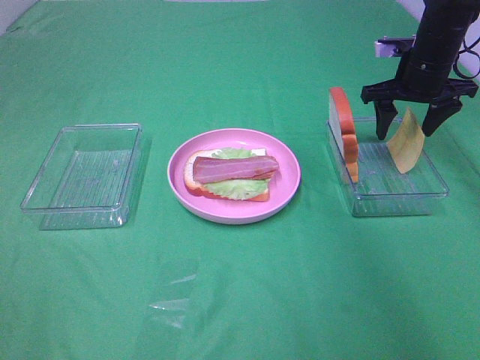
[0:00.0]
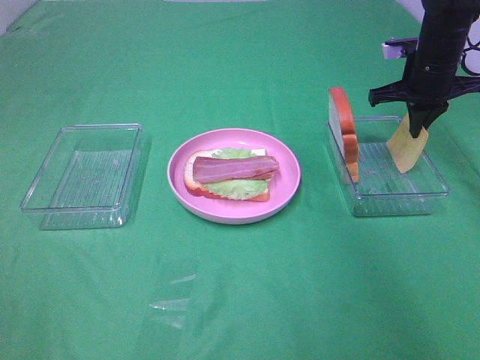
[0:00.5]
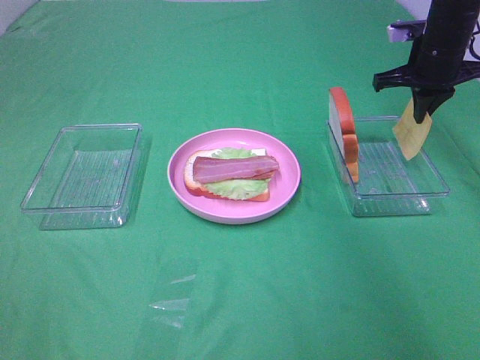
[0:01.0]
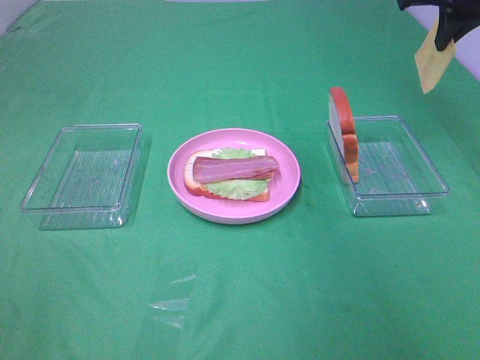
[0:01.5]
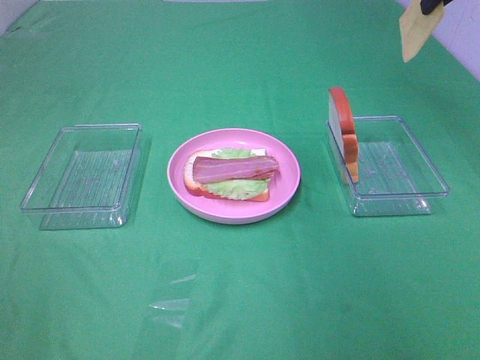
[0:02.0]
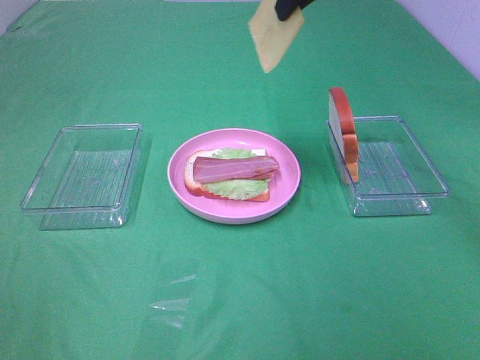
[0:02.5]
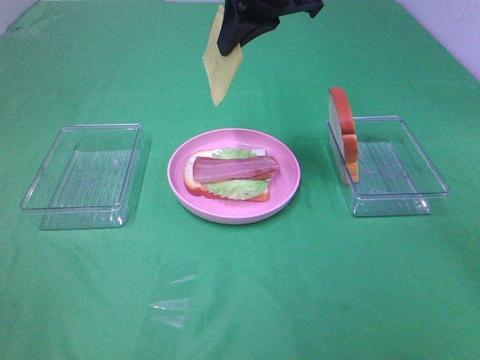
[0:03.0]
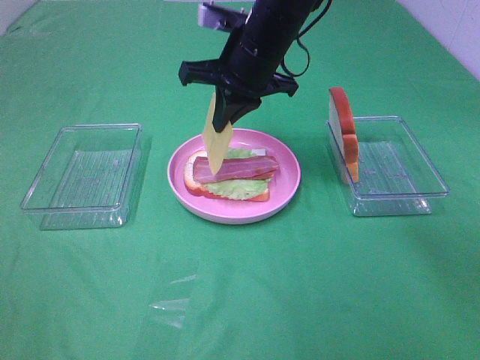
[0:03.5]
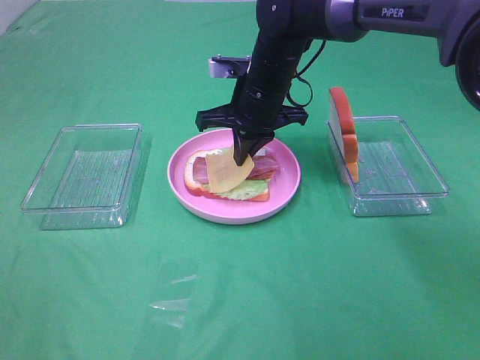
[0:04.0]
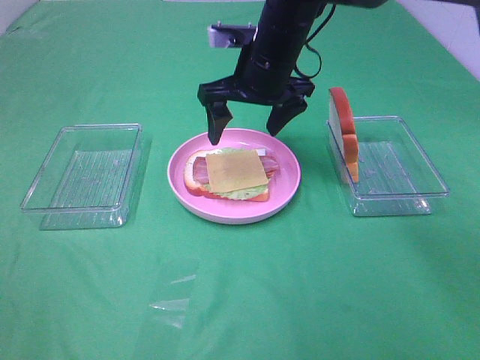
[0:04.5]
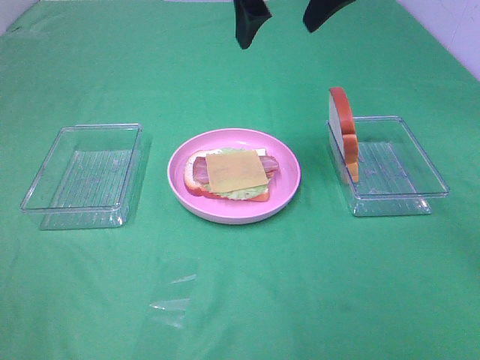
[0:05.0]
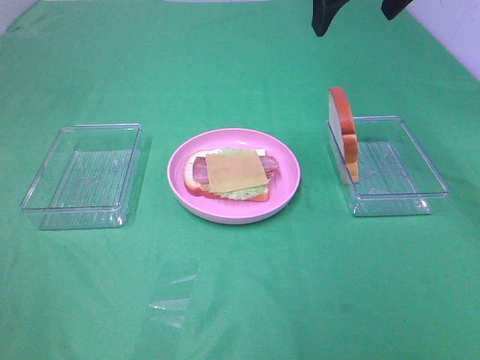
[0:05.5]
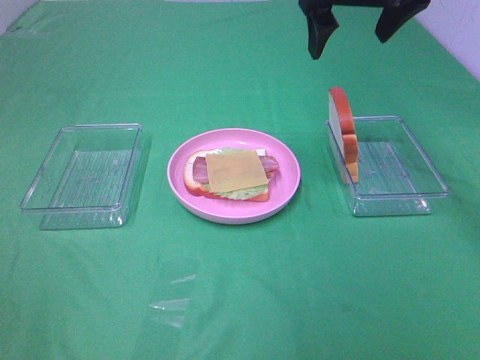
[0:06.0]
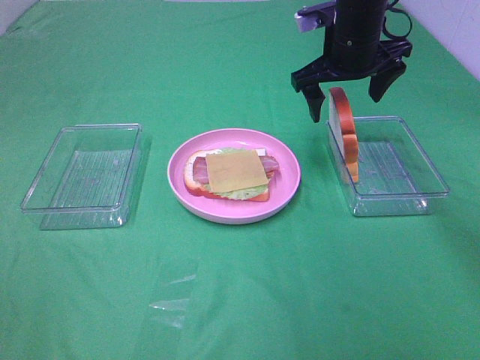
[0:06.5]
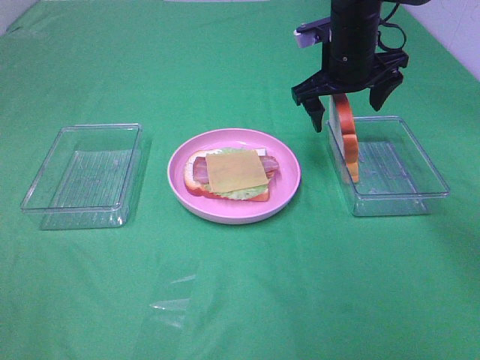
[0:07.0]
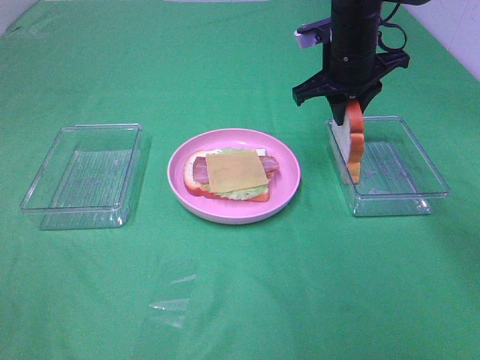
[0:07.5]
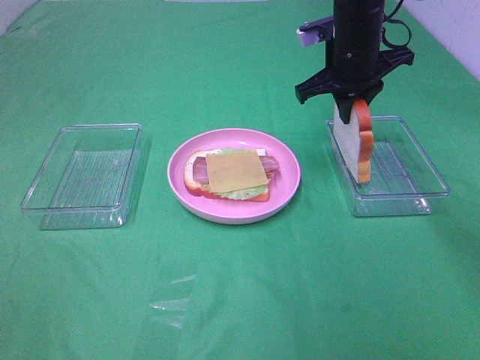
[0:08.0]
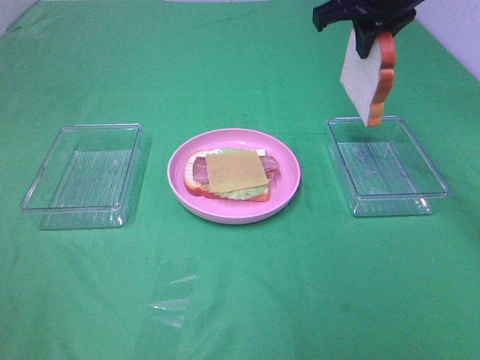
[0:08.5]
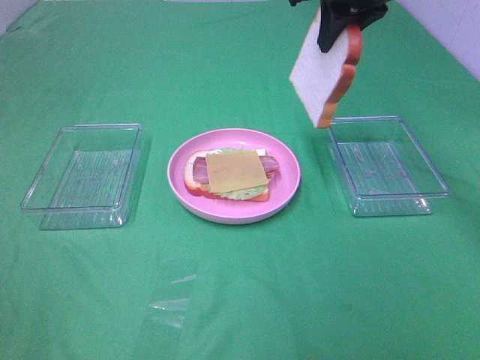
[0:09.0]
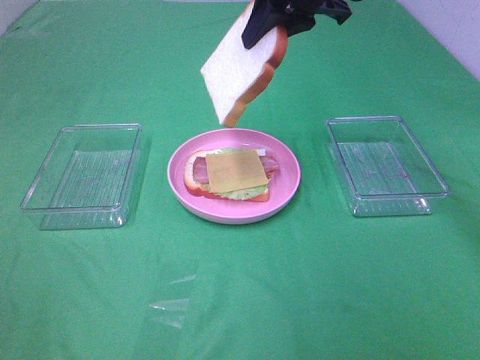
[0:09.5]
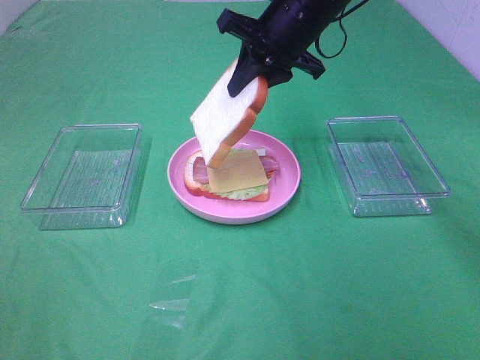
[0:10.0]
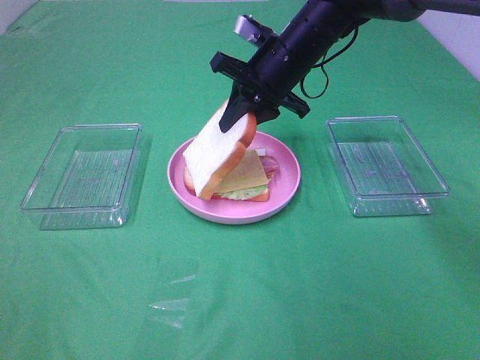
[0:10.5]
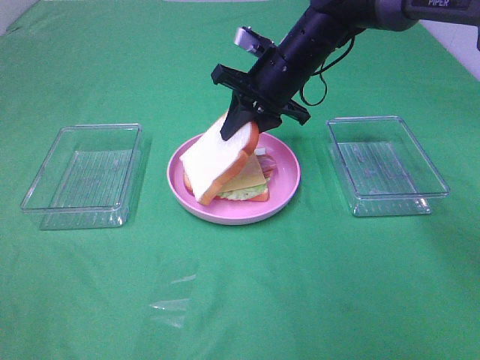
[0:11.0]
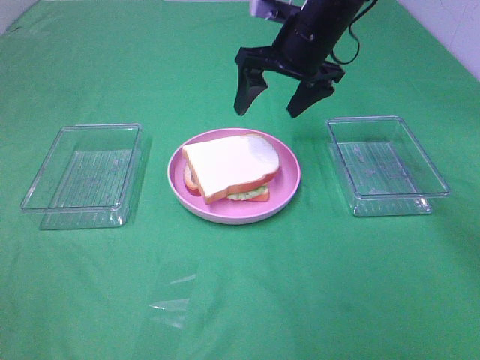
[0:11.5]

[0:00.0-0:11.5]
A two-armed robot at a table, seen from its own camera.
Task of the whole recording: Make sandwiches.
Step, 0:01.0 to 0:04.0: Right hand:place the cheese slice on top of the bacon.
Step, 0:04.5 to 0:08.0: Right hand:grab the bread slice.
Step, 0:08.5 to 0:11.5: Right hand:place the bread slice on the cheese slice.
0:00.0 to 0:02.0: The right gripper shifts approximately 20 cm upward, and closes up.
0:02.0 to 0:04.0: The right gripper is displaced to the left and downward by some 30 cm.
0:04.0 to 0:06.0: The right gripper travels upward and to the right by some 20 cm, and opens.
0:06.0 to 0:07.5: The right gripper is displaced downward by about 10 cm, and closes its fingers.
0:07.5 to 0:09.5: The right gripper goes some 10 cm upward and to the left.
0:09.5 to 0:11.5: The right gripper moves downward, approximately 5 cm, and opens its fingers.

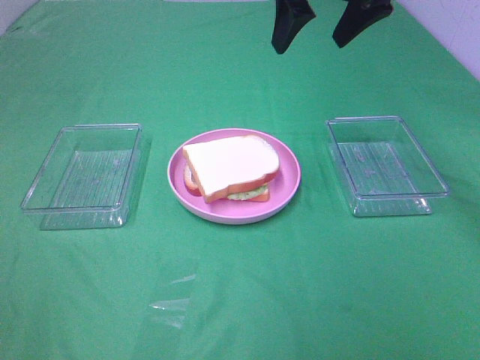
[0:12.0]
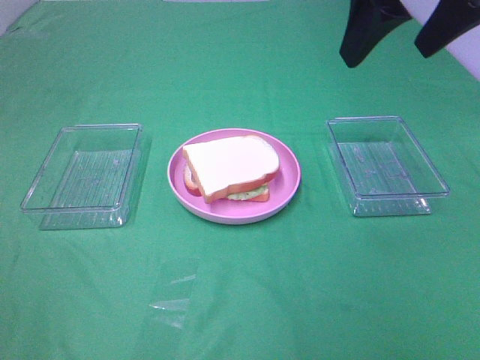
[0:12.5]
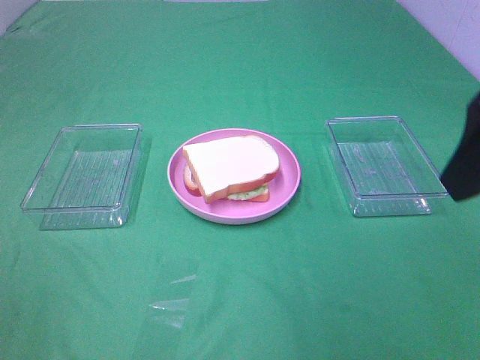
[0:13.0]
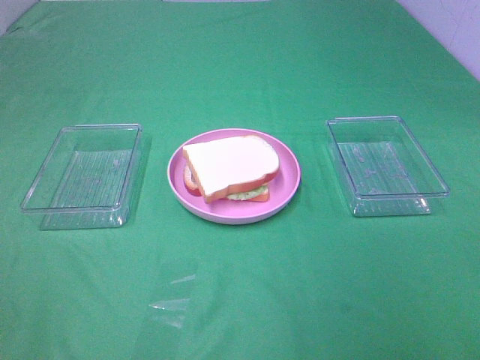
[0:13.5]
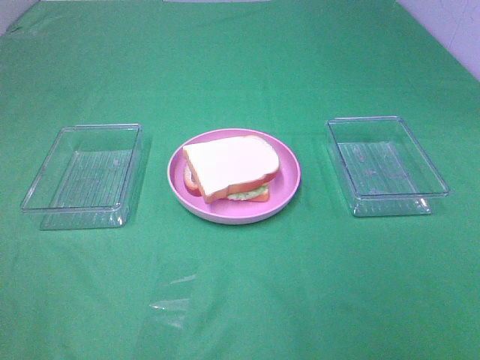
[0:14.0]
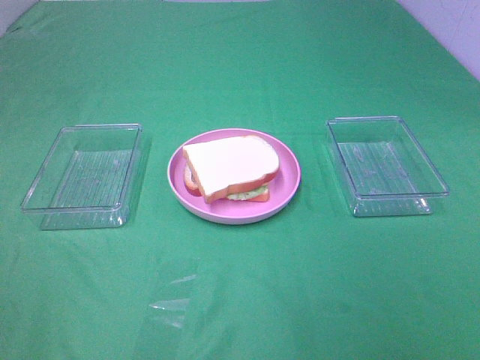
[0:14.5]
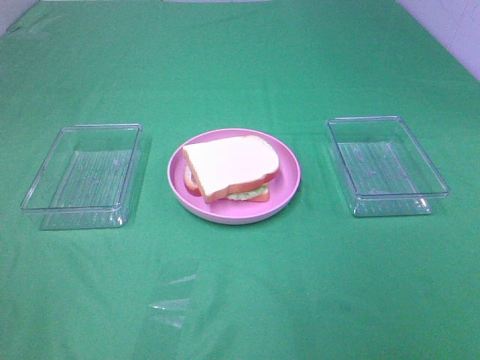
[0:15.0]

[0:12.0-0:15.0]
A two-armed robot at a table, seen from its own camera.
Task of the whole recording: Make sandwiches.
0:12.0 to 0:13.5: The right gripper moves backward and to the right, approximately 35 cm.

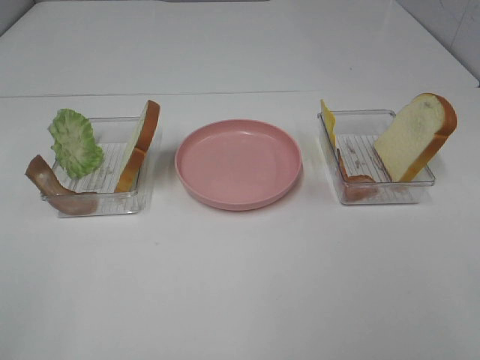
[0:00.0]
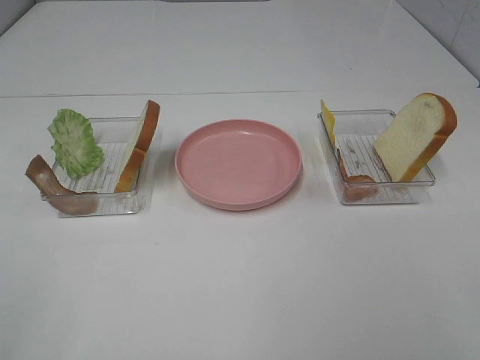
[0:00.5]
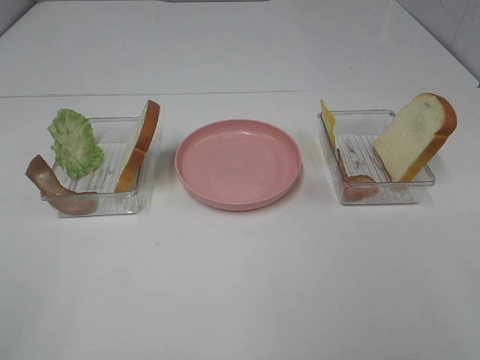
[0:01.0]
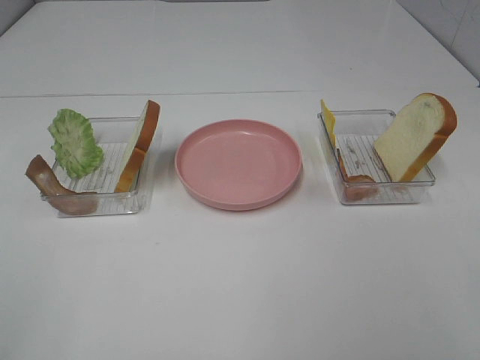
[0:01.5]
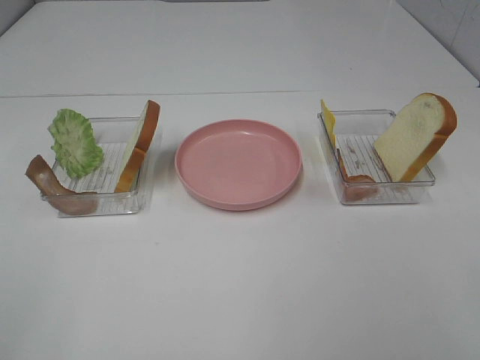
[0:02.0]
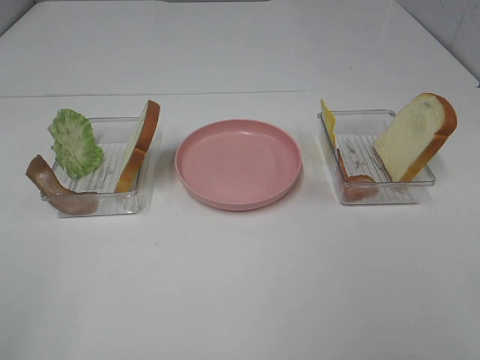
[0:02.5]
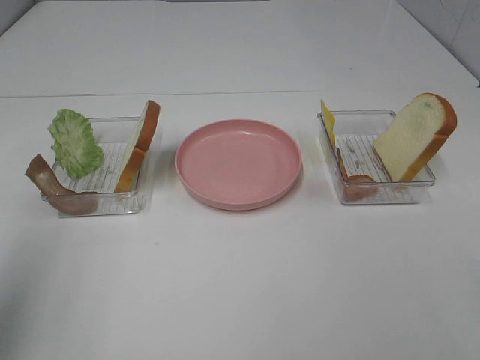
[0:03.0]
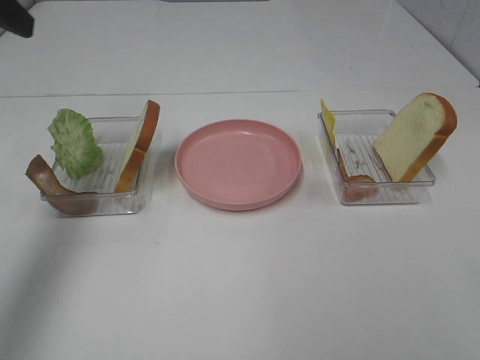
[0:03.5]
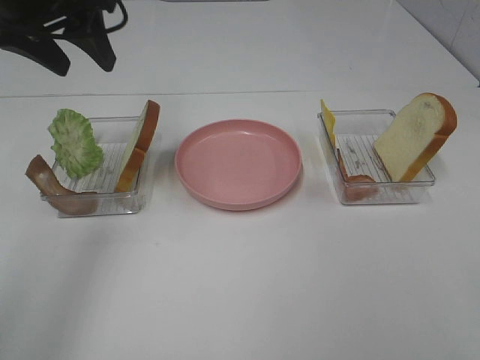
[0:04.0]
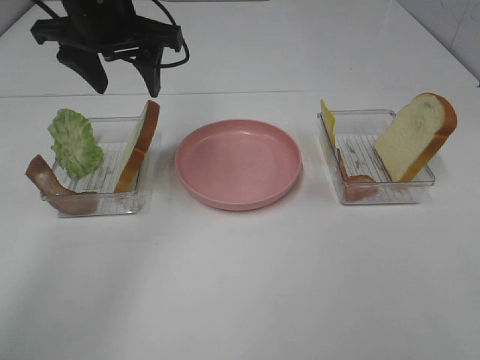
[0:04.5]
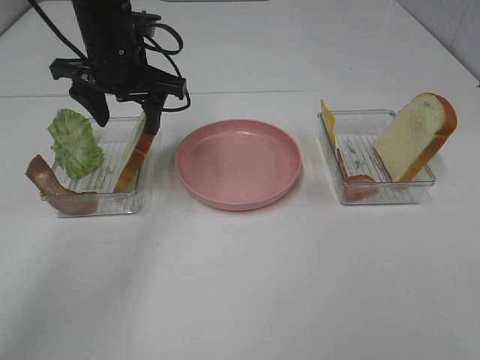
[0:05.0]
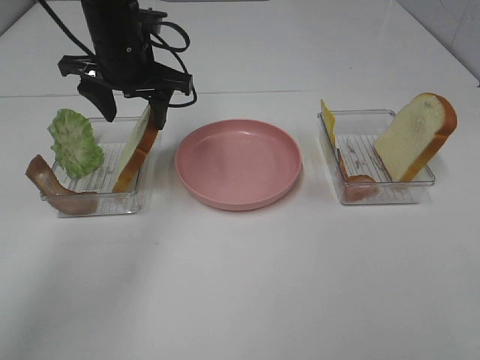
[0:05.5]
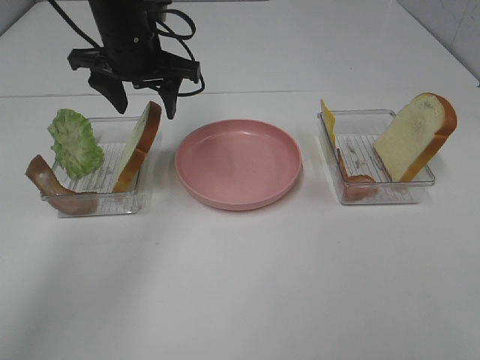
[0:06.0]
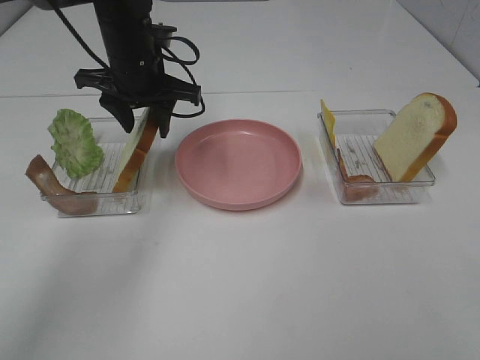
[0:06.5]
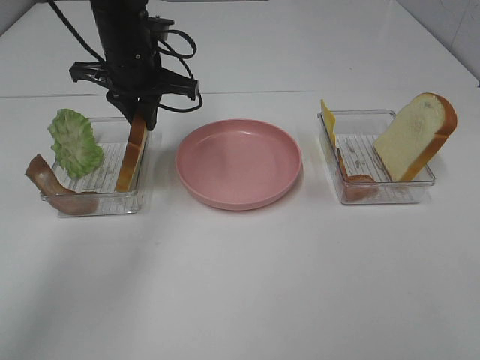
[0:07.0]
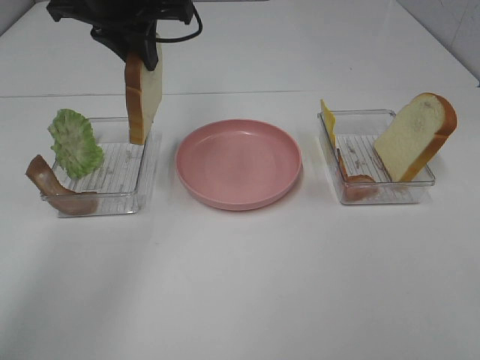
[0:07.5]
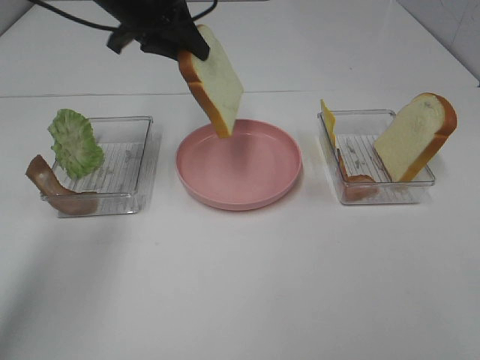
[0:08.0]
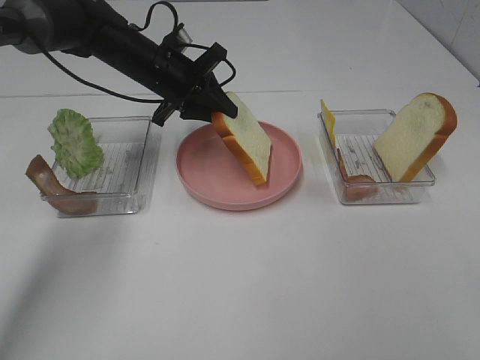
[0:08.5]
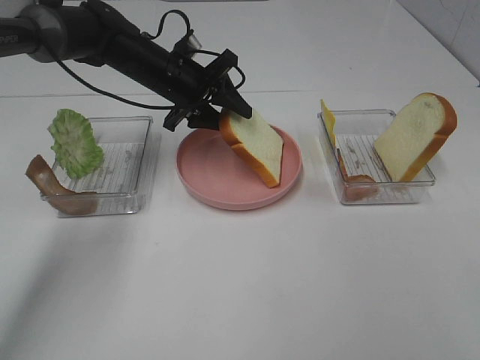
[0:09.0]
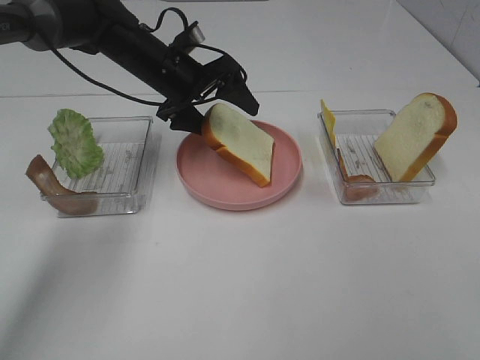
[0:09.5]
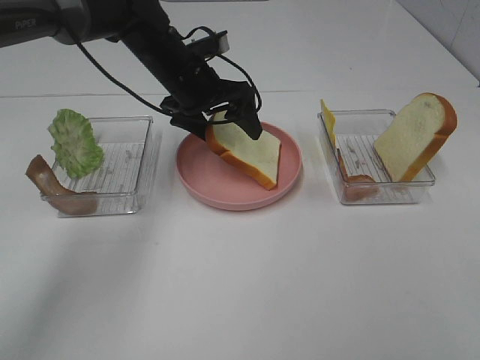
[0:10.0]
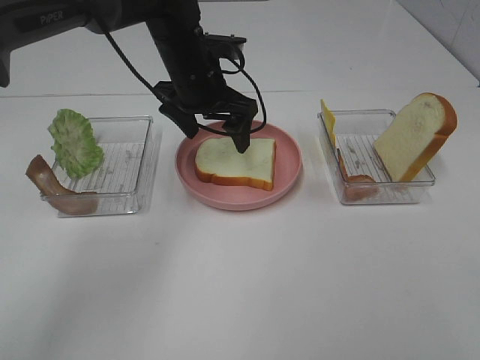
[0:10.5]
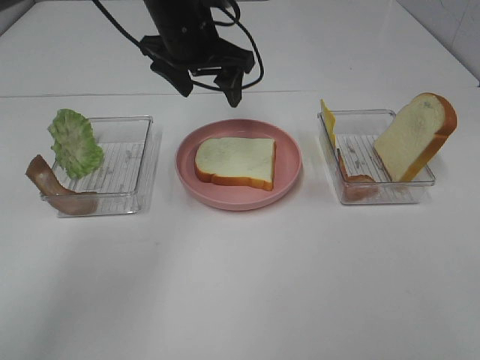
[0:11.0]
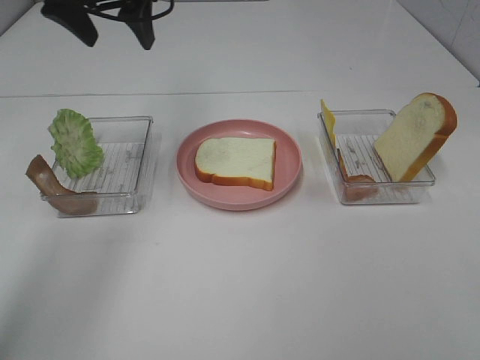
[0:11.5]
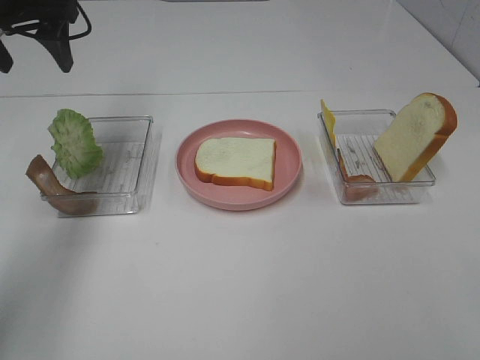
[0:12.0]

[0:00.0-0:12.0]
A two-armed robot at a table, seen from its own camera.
Task of the whole recording: Make sandwiches.
Step, 0:00.0 to 0:06.5: Left hand:grab the bread slice.
Step, 0:07.0 to 0:10.0: Left hand:place the bread slice on the plate.
0:00.0 to 0:02.0: Both grippers stay about where they are.
0:02.0 to 0:04.0: The left gripper travels forward by roughly 35 cm.
0:04.0 to 0:06.0: The left gripper heads downward, forward and to the right, covering about 15 cm.
0:06.0 to 0:08.0: The left gripper goes upward and returns, some 10 cm each way, and closes its fingers.
0:08.0 to 0:10.0: The left gripper shifts some 10 cm downward and to the right, and opens.
0:10.0 to 0:12.0: The left gripper heads to the left and upward, covering roughly 25 cm.
